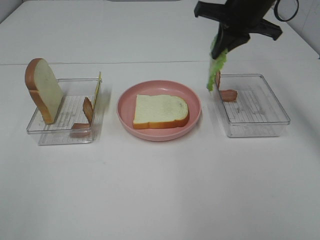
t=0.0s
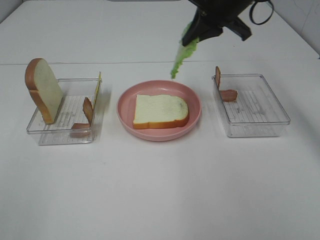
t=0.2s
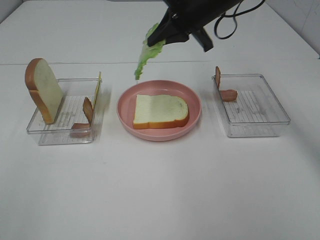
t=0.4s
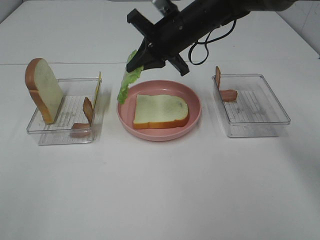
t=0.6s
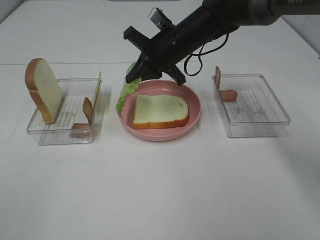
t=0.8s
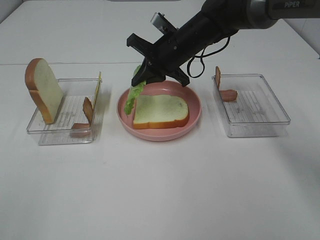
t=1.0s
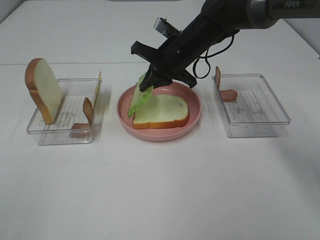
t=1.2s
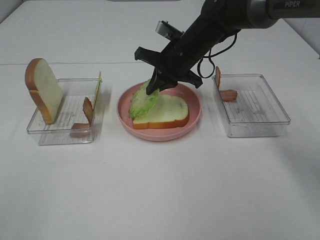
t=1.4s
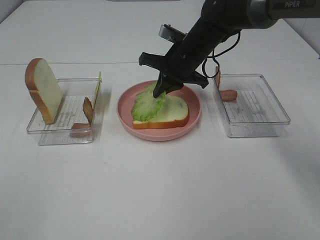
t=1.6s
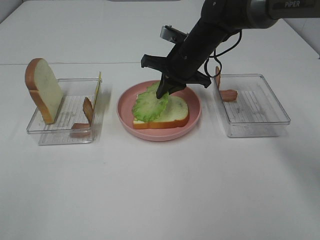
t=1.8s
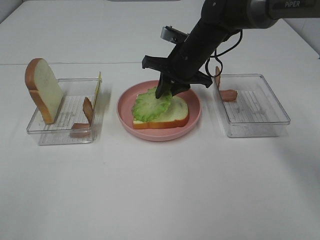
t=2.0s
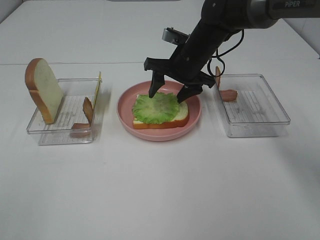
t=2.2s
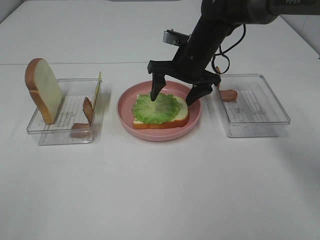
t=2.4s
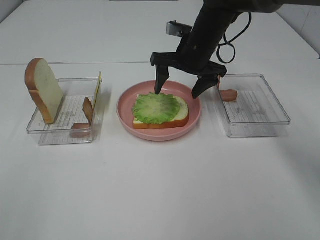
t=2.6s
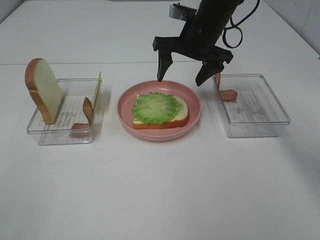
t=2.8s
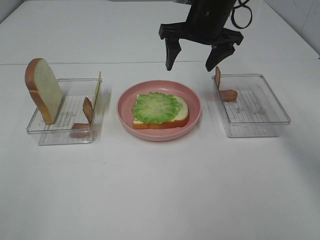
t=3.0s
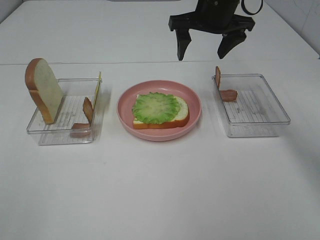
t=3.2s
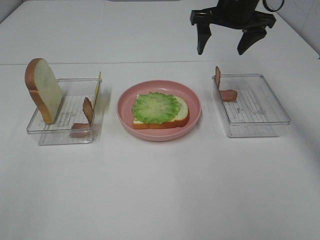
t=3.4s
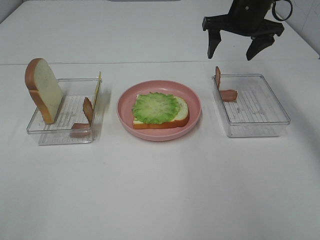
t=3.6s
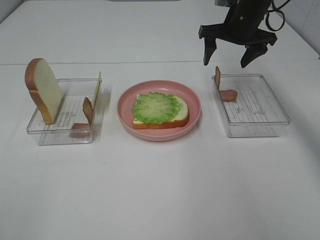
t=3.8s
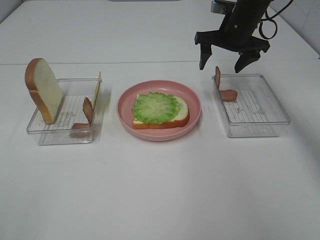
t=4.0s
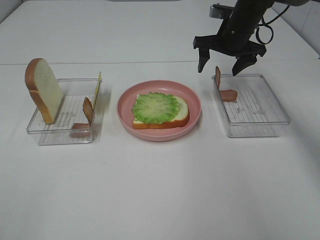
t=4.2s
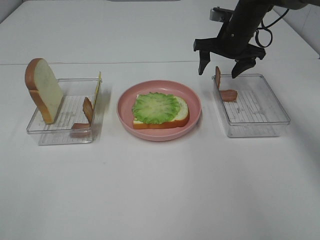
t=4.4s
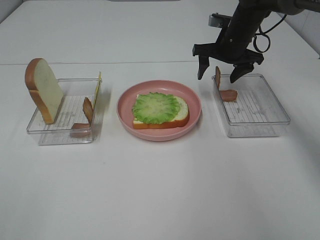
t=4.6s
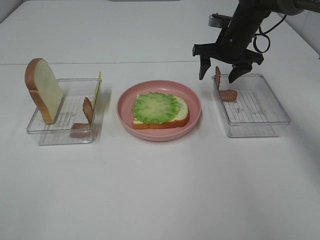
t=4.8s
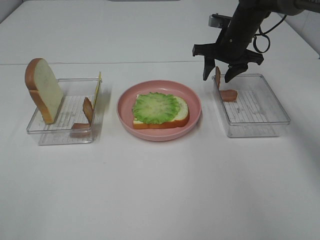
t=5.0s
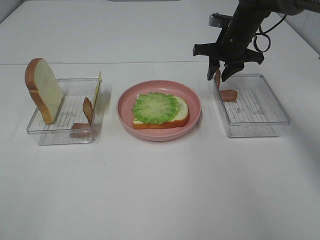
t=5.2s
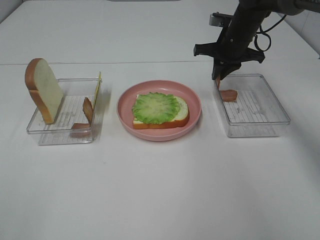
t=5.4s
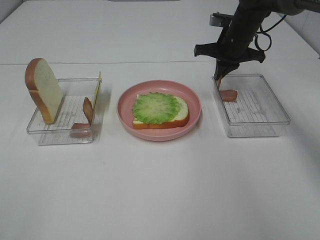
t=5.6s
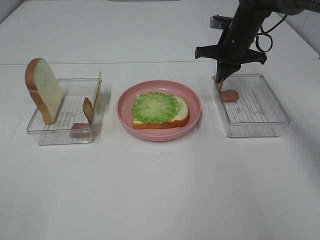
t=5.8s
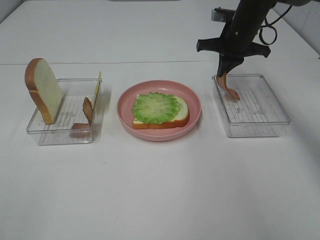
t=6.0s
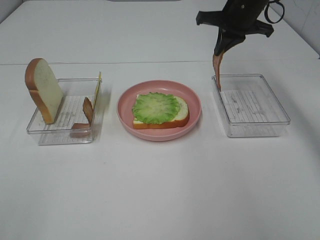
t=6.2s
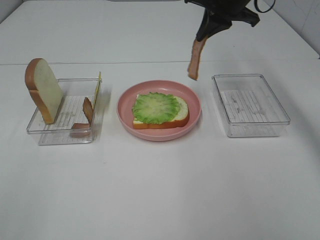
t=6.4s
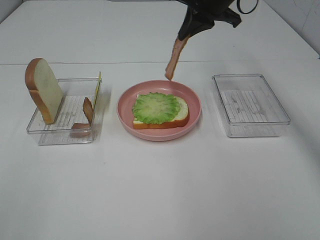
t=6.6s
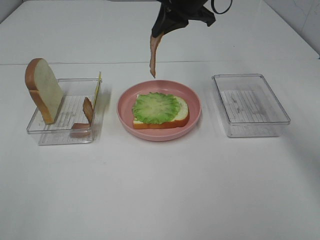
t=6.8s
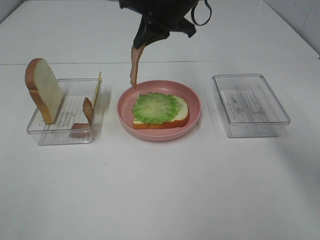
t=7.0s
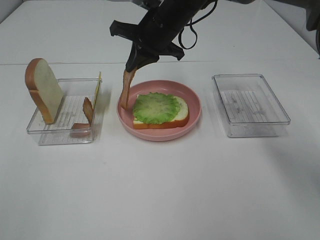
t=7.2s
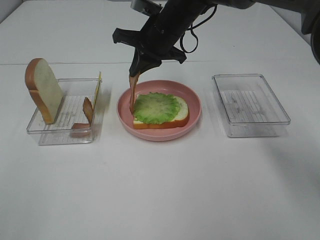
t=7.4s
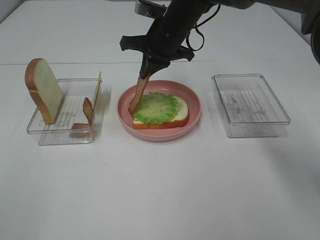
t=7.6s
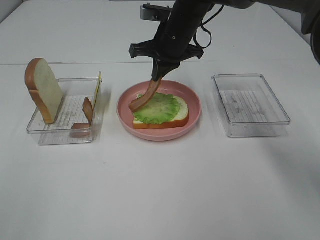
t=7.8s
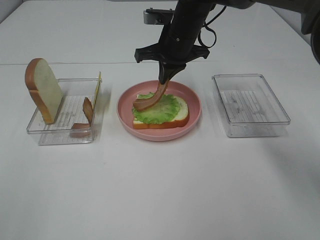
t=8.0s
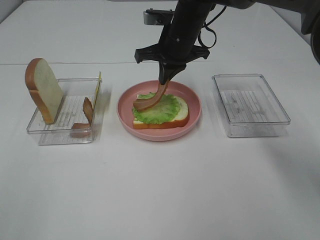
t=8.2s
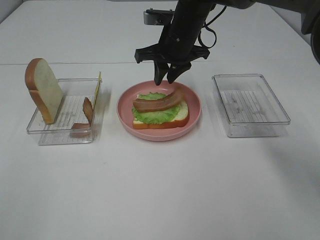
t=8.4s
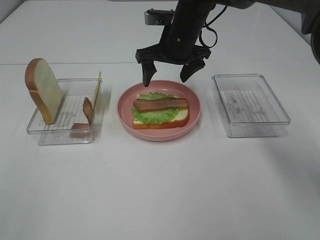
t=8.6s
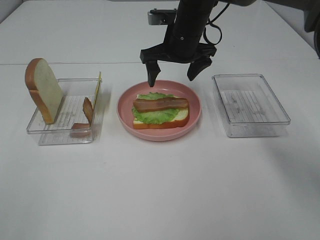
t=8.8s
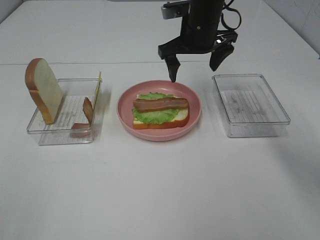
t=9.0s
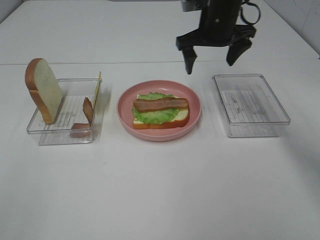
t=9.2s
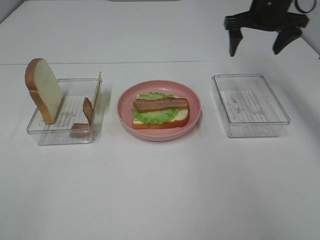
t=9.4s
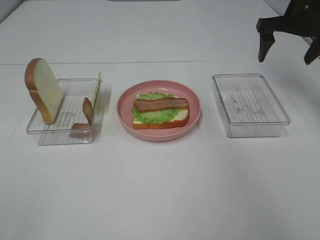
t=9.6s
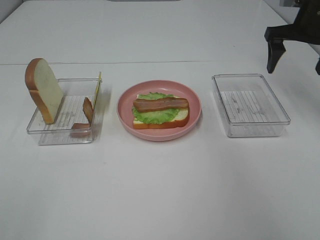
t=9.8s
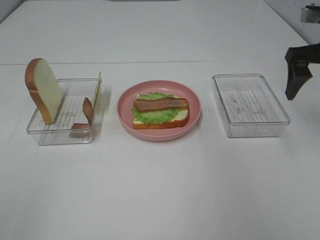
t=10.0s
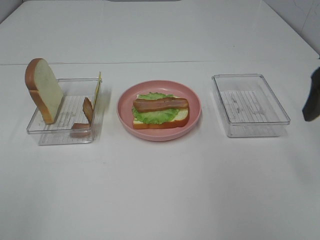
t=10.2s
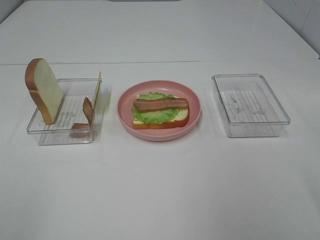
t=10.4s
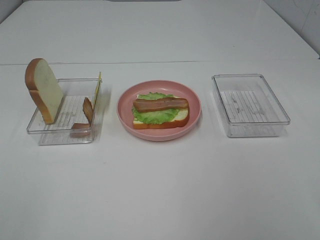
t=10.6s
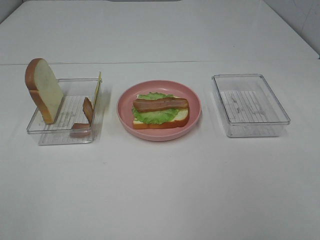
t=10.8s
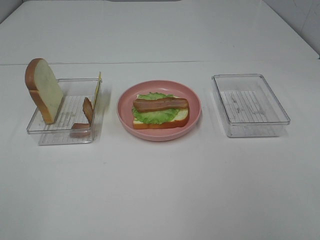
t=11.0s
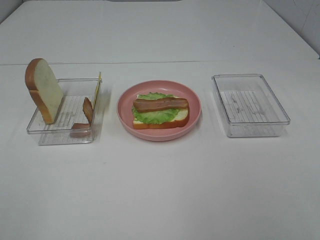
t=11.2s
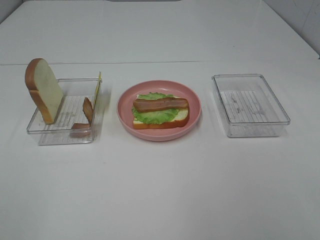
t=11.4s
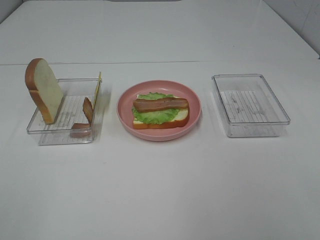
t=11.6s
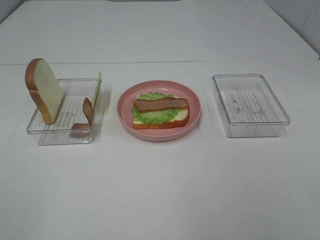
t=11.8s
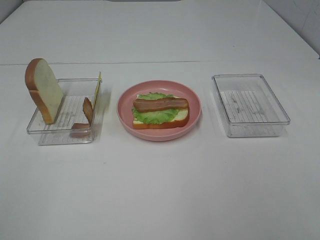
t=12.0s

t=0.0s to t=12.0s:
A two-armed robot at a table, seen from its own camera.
Task of the whole recording: Make sandwiches.
Step, t=0.0s to t=2.4s: Right hand:place the lettuce slice on the bread slice.
Step, t=2.6s to t=5.6s: Right hand:grab the bacon.
Step, t=5.8s to t=8.8s: Right hand:place bacon on lettuce slice.
t=0.0s to t=1.6s: The right gripper is displaced downward and to the left by roughly 15 cm.
t=1.6s to t=3.0s: The right gripper moves upward, approximately 10 cm, and opens its fingers.
t=3.0s to t=4.4s: The right gripper moves to the right, downward and forward, roughly 10 cm.
t=4.4s to t=6.0s: The right gripper closes.
t=6.0s to t=7.6s: The right gripper travels to the left by approximately 15 cm.
t=7.6s to t=9.0s: The right gripper shifts roughly 5 cm to the right, and opens.
t=9.0s to t=10.4s: The right gripper travels backward and to the right by approximately 35 cm.

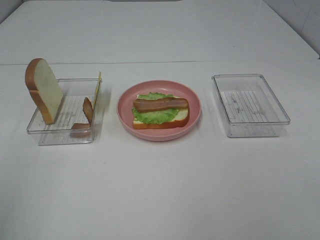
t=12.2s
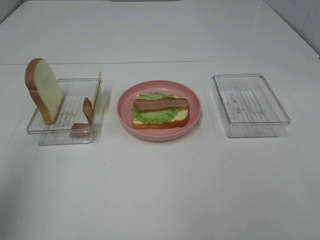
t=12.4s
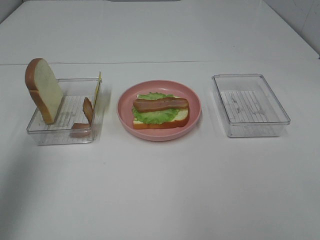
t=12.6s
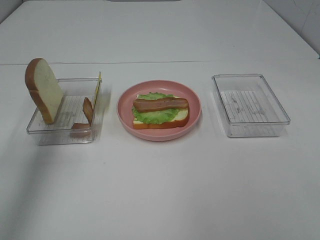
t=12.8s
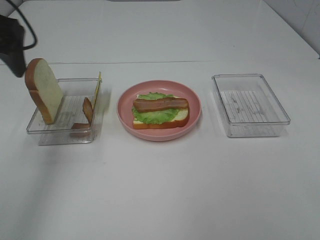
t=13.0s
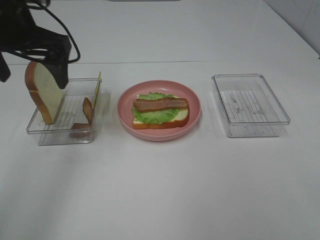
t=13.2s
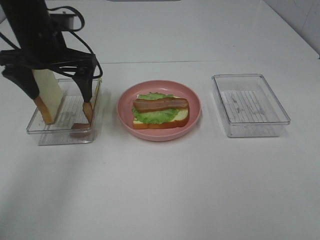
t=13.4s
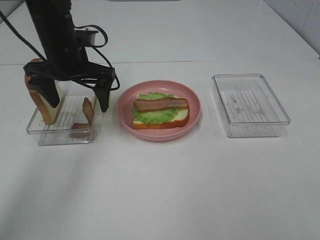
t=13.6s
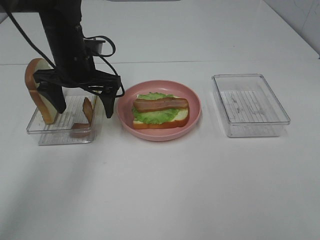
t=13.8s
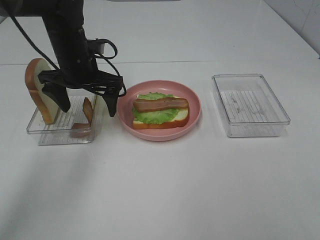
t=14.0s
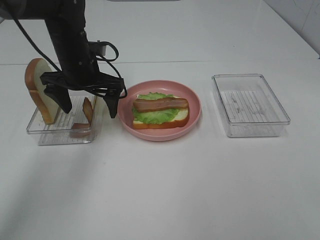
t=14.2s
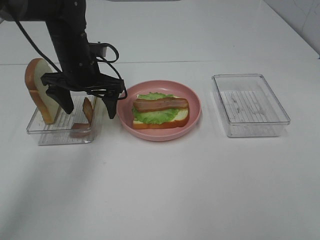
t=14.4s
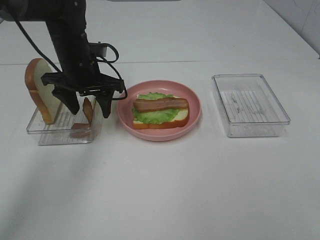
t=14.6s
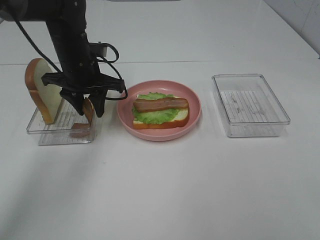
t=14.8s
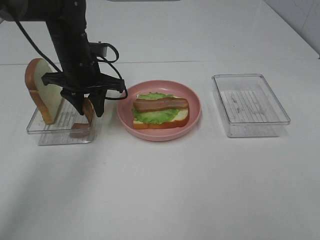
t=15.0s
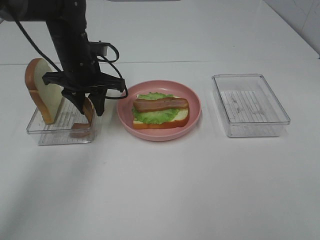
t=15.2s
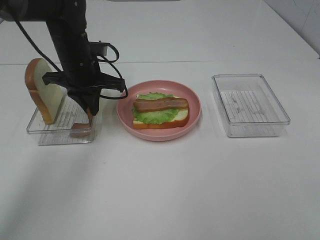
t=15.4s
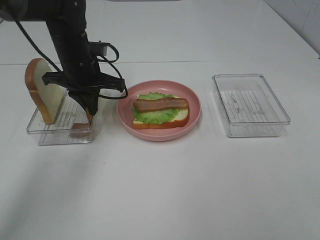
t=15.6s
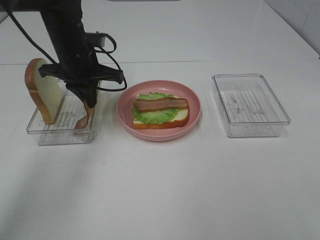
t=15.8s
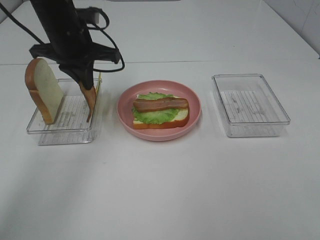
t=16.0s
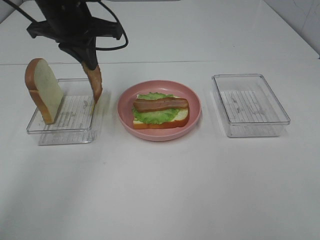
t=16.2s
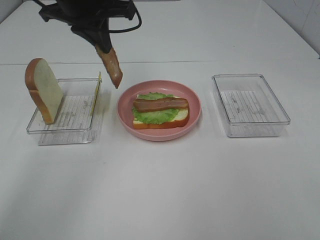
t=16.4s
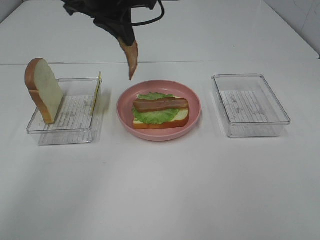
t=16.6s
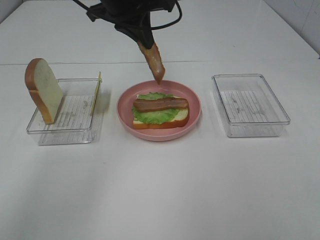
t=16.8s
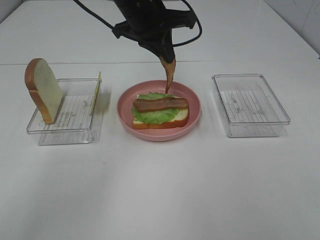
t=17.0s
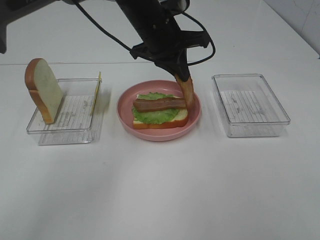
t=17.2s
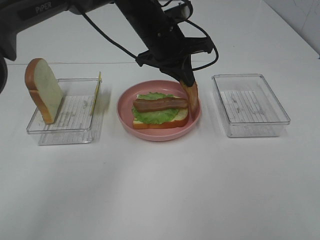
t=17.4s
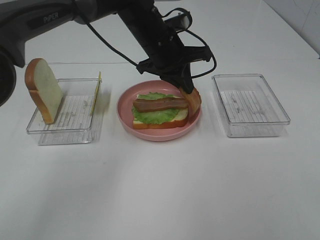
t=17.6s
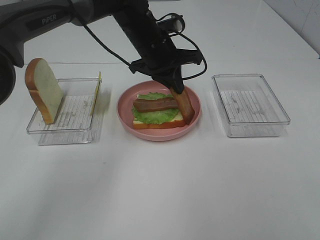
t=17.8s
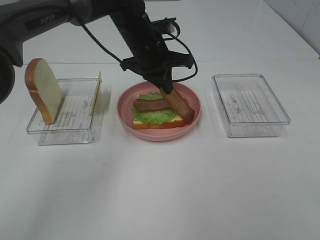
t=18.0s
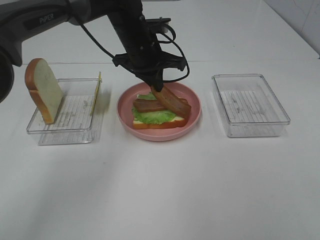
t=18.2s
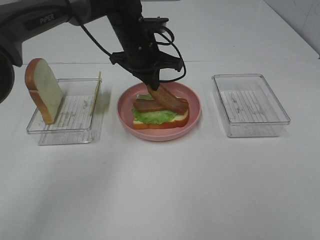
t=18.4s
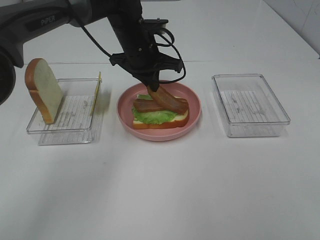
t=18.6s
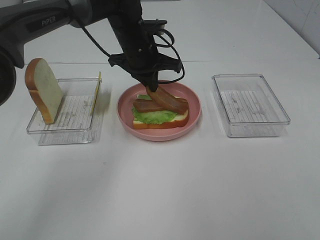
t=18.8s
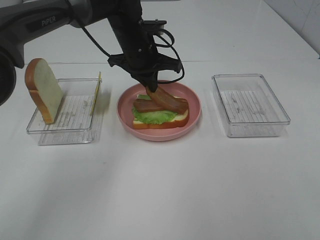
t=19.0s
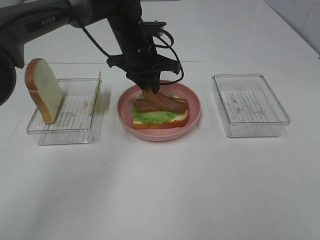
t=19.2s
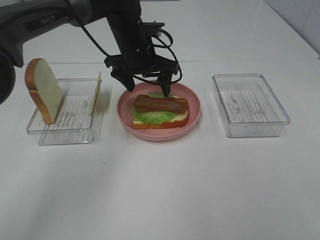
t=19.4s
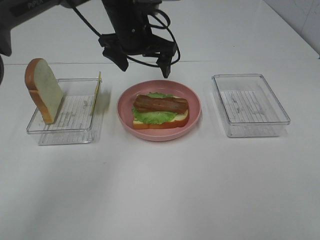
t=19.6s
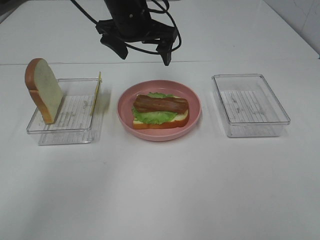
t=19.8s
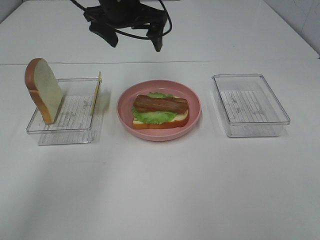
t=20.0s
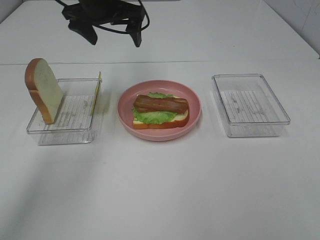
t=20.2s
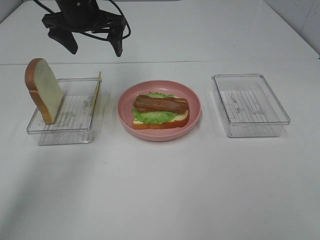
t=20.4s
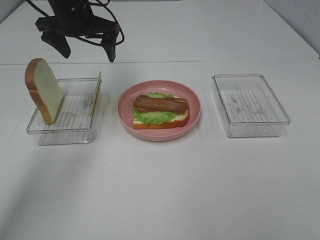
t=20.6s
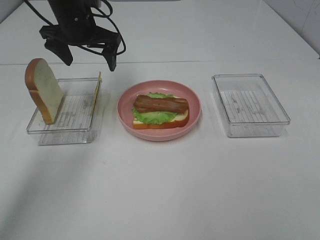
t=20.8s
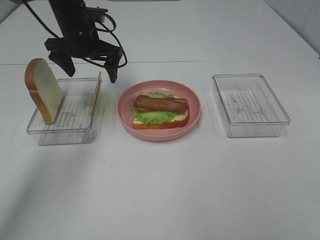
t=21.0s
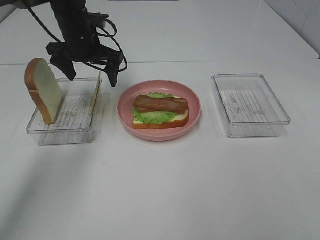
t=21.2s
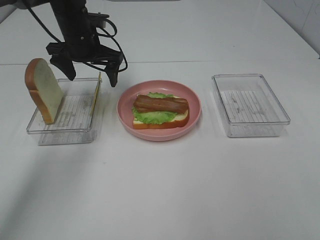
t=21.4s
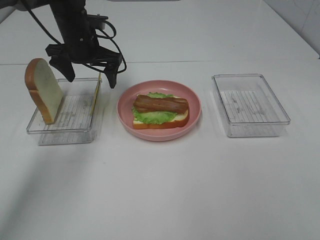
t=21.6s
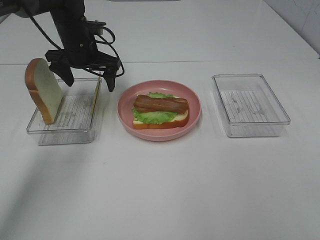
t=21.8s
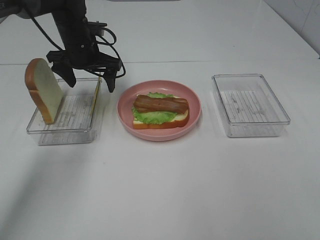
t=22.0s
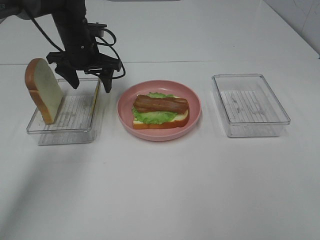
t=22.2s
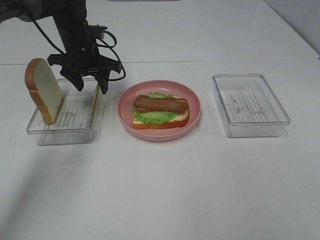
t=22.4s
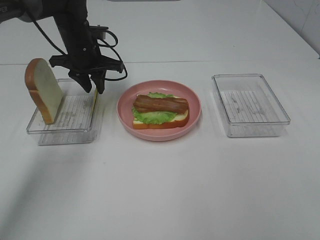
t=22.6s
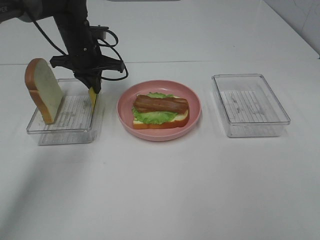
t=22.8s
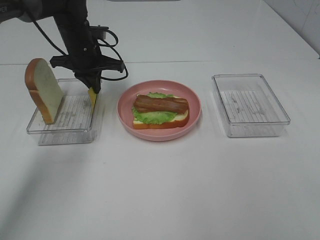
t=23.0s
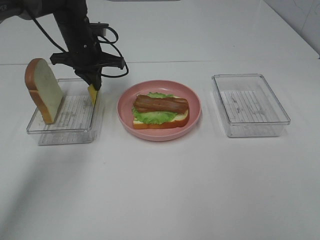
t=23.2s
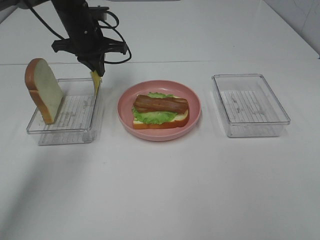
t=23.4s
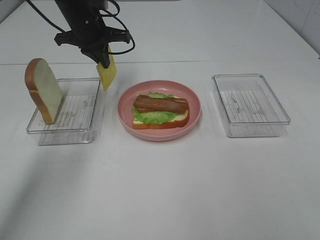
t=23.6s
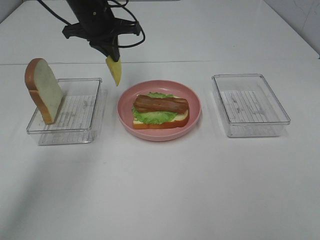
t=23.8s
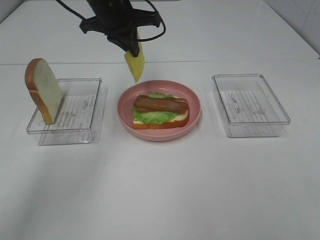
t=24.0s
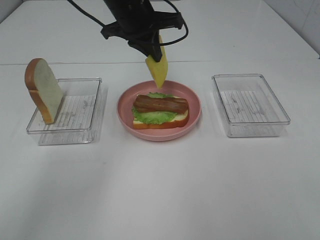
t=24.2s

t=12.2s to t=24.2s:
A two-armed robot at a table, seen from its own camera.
Task of the whole recording: Make sandwiches.
Step, t=12.2s to t=15.6s: Left hand:grab the bacon.
Step, t=15.8s to t=19.8s: Left hand:place bacon on bacon.
Step, t=20.0s to t=23.0s: Left hand:grab the cheese slice.
t=12.2s to t=13.8s: The left gripper travels forward, downward and to the right by about 40 cm.
t=13.8s to t=15.2s: The left gripper closes up.
t=15.2s to t=16.6s: The left gripper shifts approximately 15 cm upward and to the right, and closes up.
t=16.6s to t=18.2s: The left gripper is displaced downward by roughly 15 cm.
t=18.2s to t=19.8s: The left gripper heads upward, covering approximately 5 cm, and opens.
t=19.8s to t=21.2s: The left gripper is displaced to the left and downward by some 10 cm.
t=21.2s to t=22.6s: The left gripper closes its fingers.
t=22.6s to t=24.2s: The left gripper moves to the right and upward, some 15 cm.
